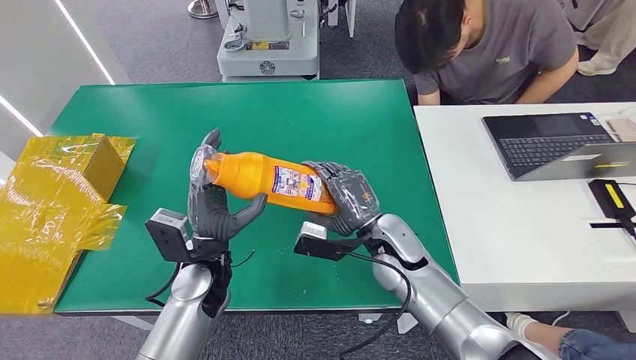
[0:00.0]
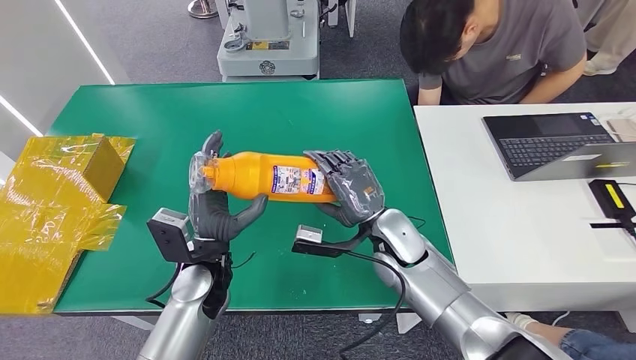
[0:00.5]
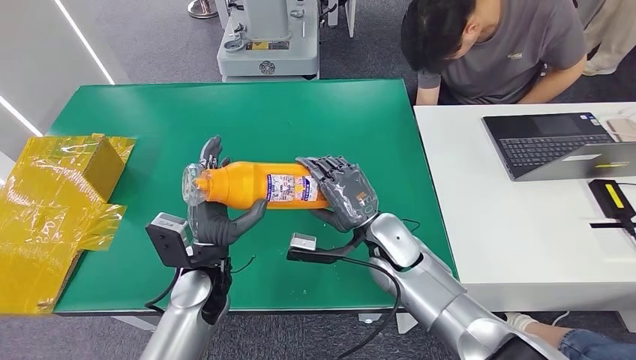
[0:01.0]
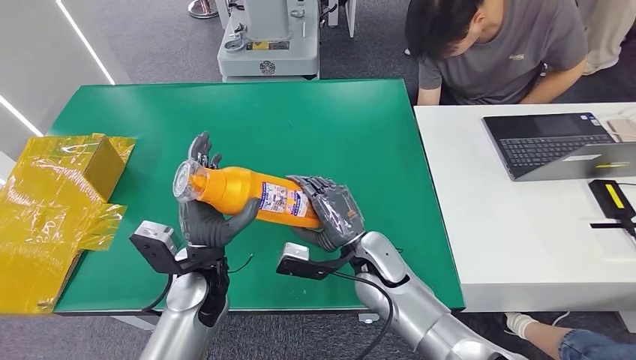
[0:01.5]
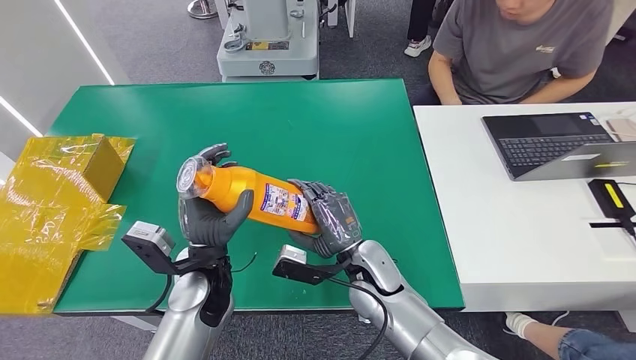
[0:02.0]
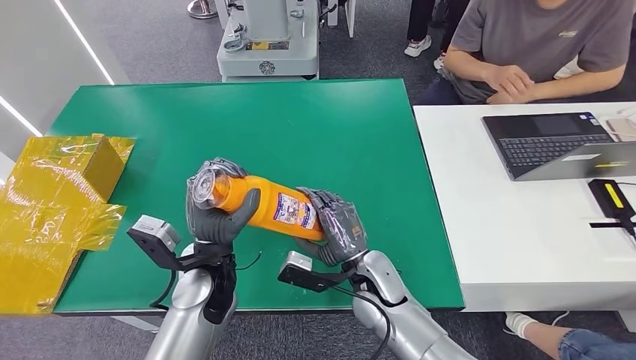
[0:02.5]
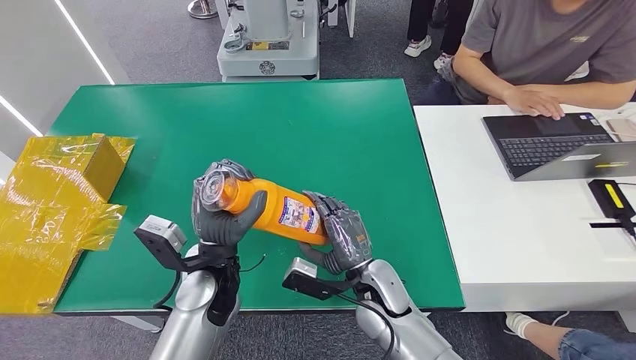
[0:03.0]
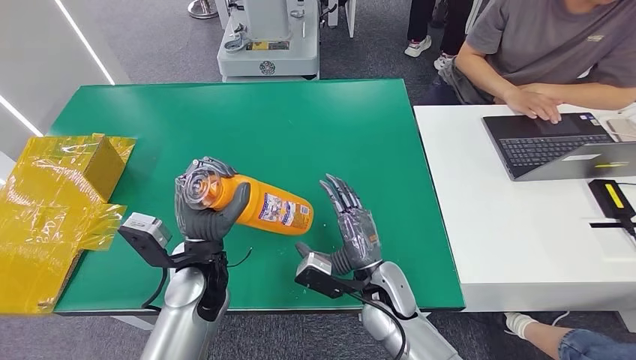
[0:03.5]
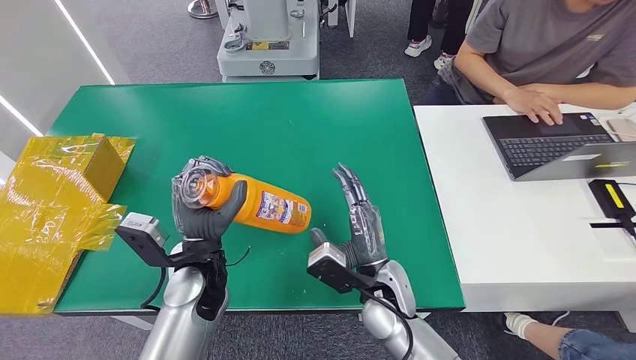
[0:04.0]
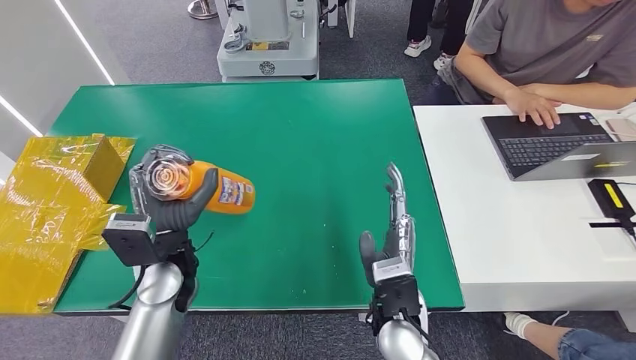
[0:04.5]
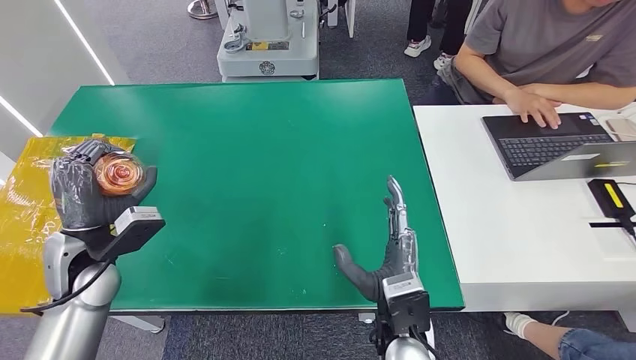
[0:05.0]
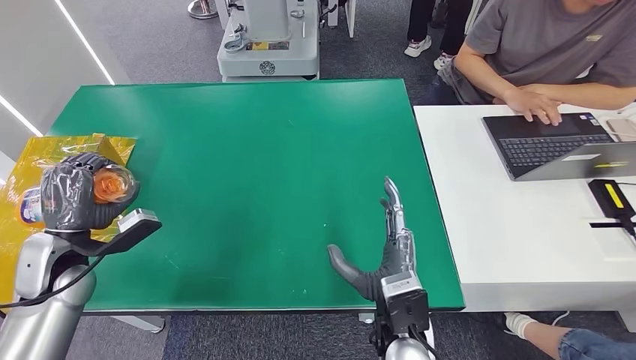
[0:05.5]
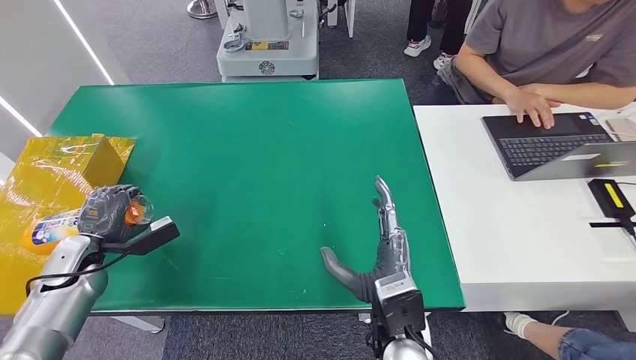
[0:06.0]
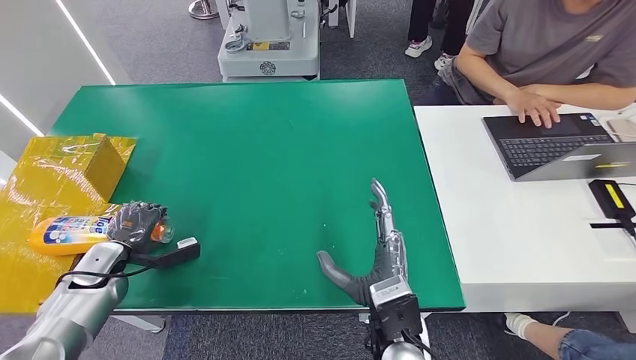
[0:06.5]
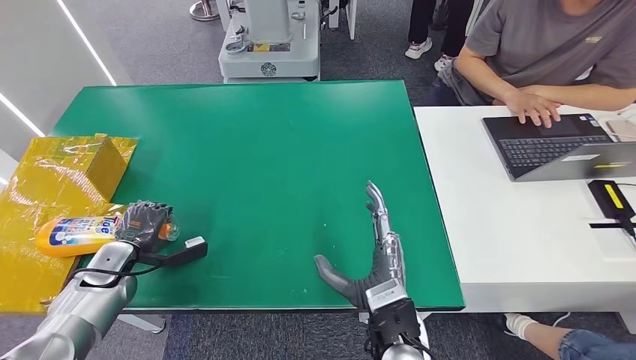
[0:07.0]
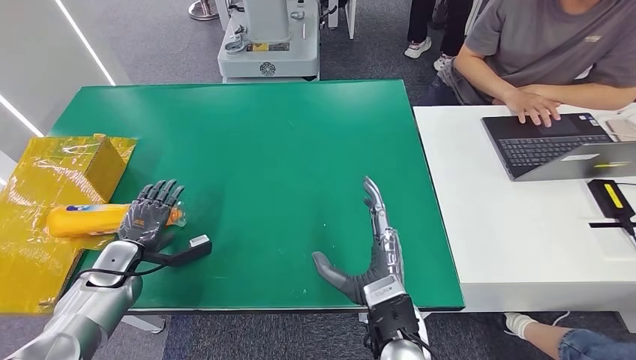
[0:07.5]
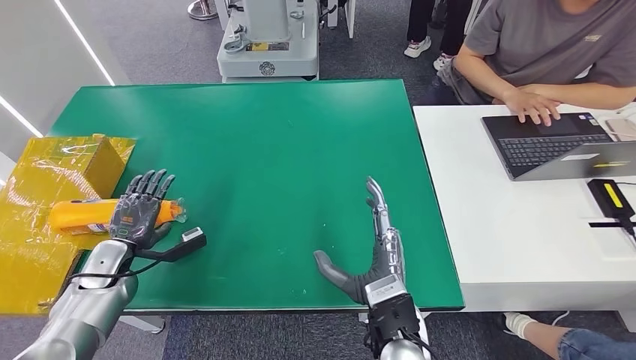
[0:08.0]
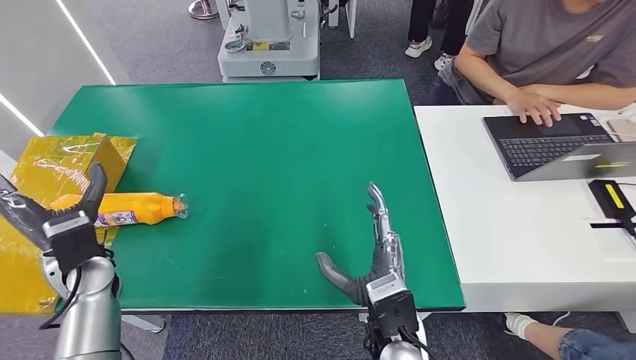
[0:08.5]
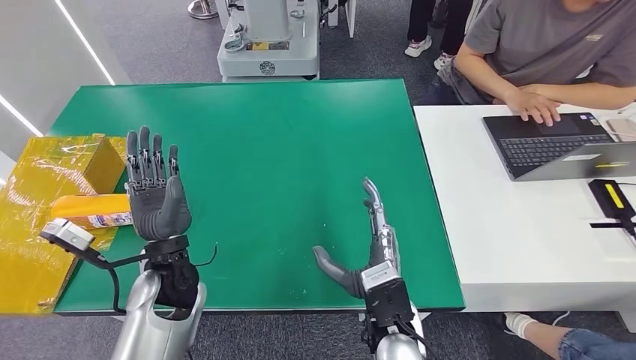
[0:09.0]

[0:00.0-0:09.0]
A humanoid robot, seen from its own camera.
Step, 0:00.0 to 0:09.0: Turn the bottle to the front side.
0:04.5 to 0:07.0: The left hand heads to the left and downward, covering approximately 25 cm.
0:07.0 to 0:09.0: The left hand goes approximately 25 cm to the right and upward.

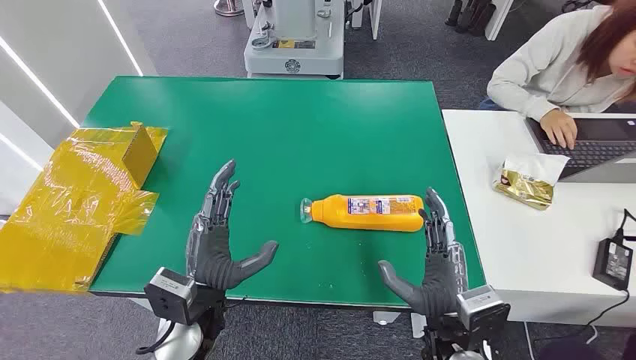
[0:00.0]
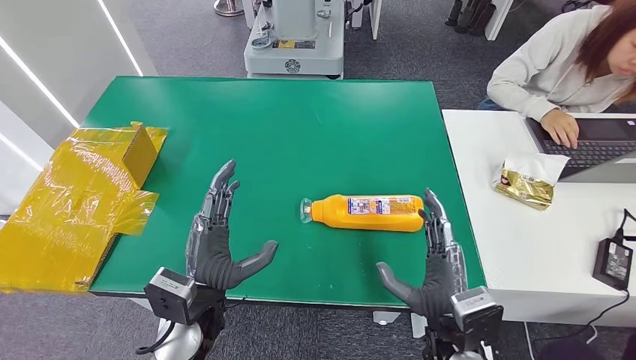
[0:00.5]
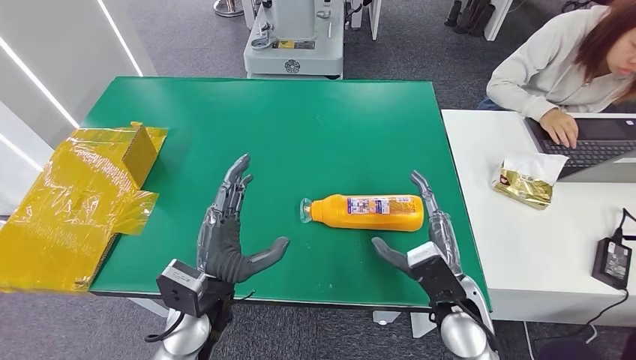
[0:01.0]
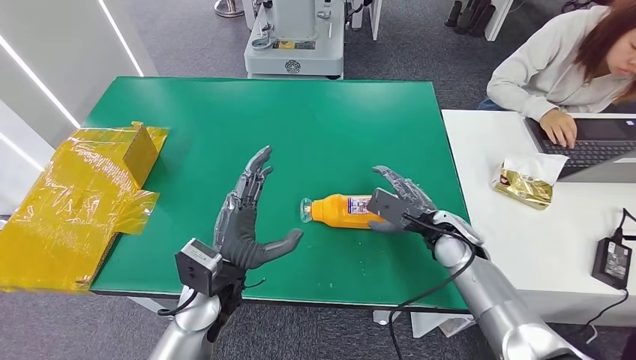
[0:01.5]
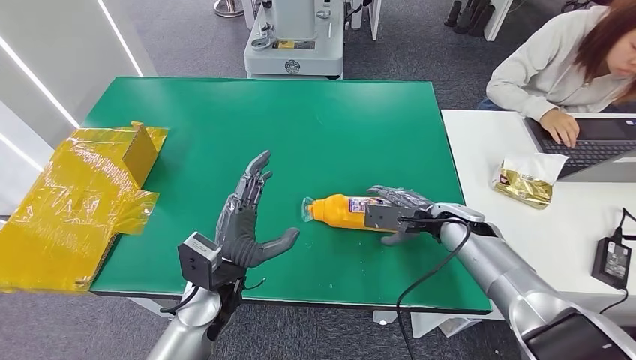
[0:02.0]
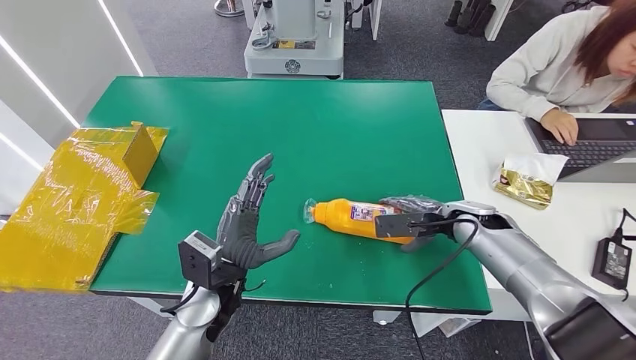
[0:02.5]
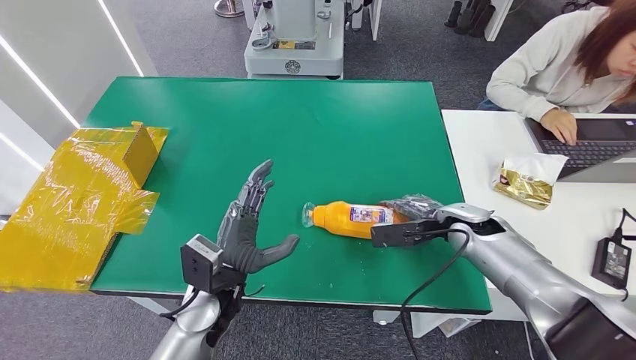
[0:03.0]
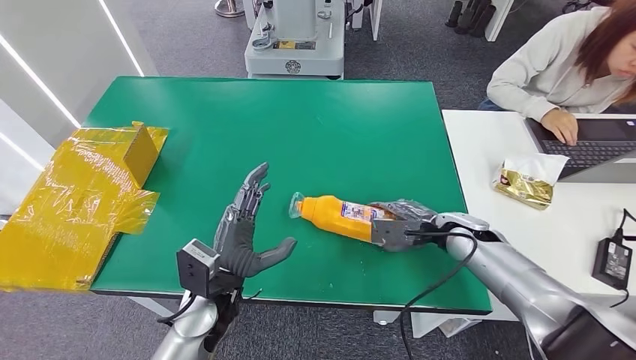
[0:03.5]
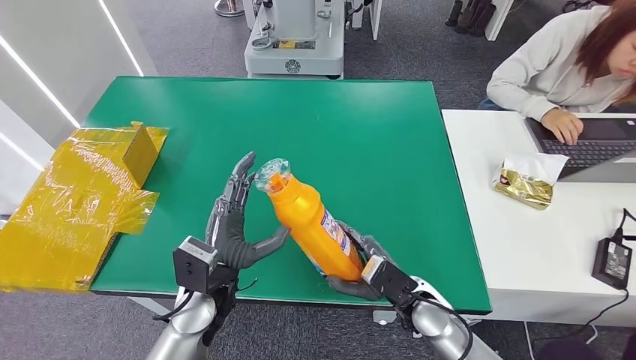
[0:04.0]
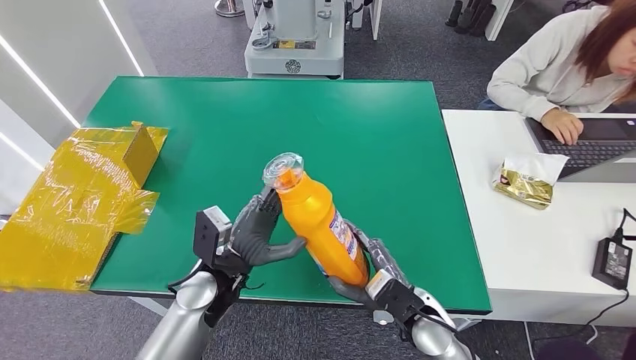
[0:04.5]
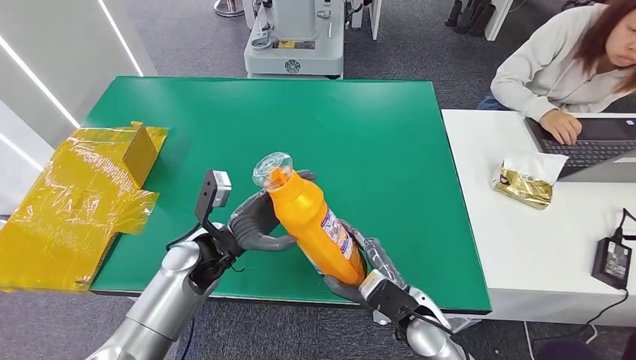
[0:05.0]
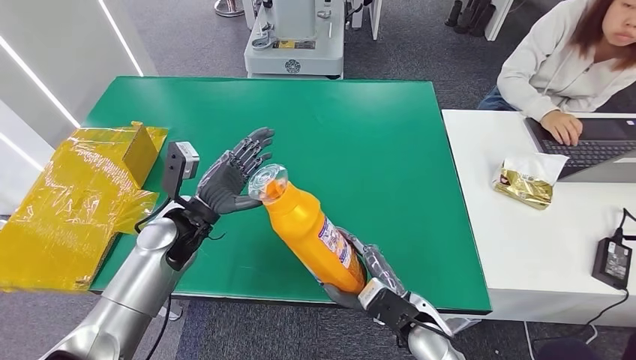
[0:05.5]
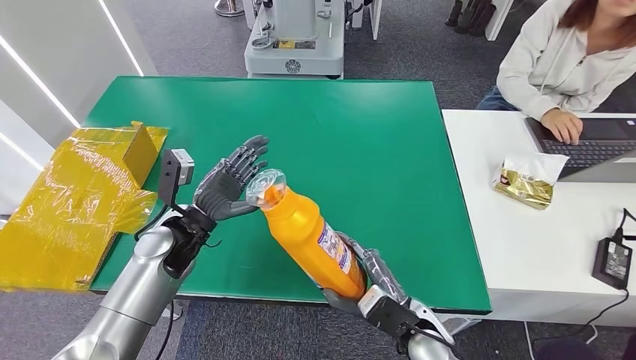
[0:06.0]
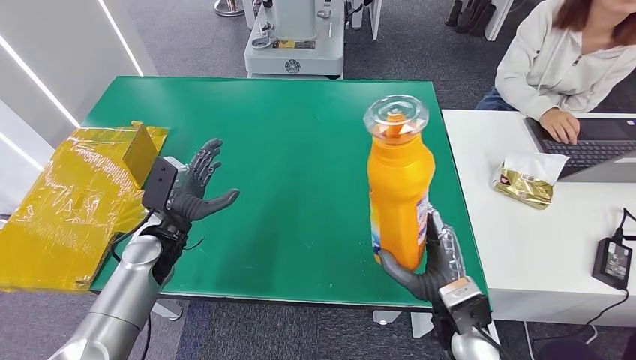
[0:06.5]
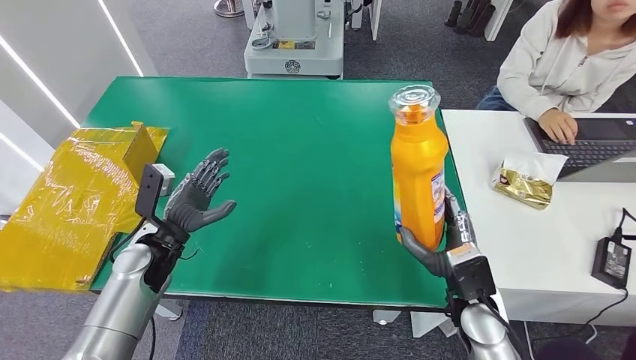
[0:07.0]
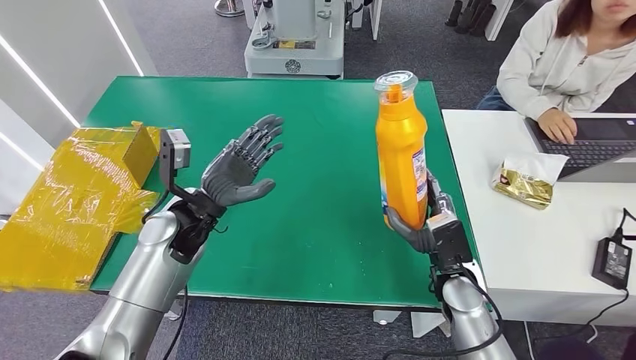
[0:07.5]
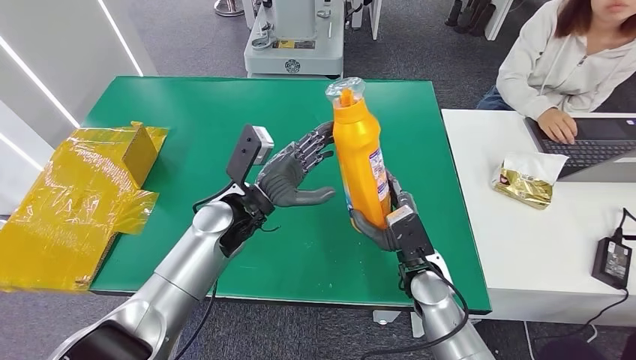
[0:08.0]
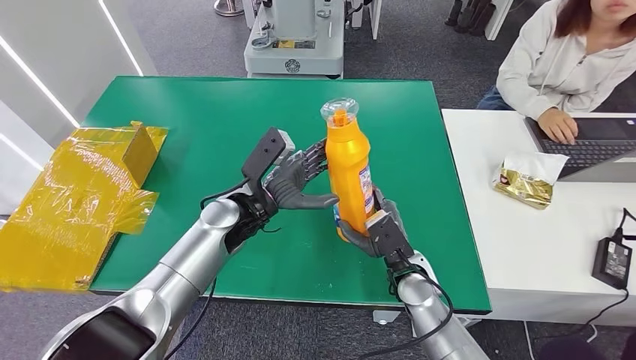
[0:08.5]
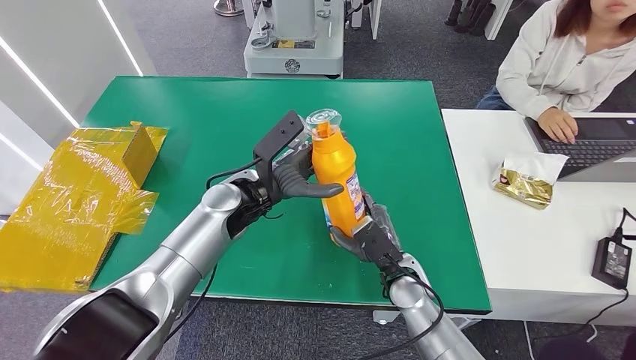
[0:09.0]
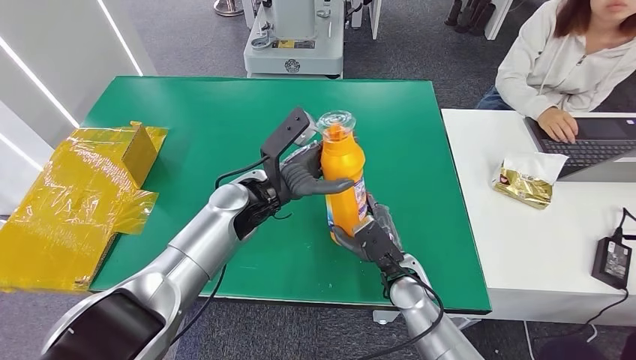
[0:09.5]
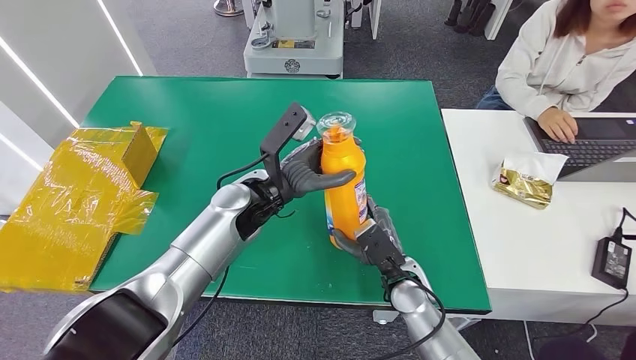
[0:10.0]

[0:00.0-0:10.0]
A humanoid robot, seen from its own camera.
Step, 0:00.0 to 0:04.0: Pick up the bottle from the table.
0:02.0 to 0:04.0: The right hand goes about 15 cm backward, to the left and downward.
0:04.0 to 0:06.0: The left hand is displaced forward and to the left by approximately 15 cm, while the right hand changes place by roughly 5 cm.
0:08.0 to 0:10.0: The hands move only a little.

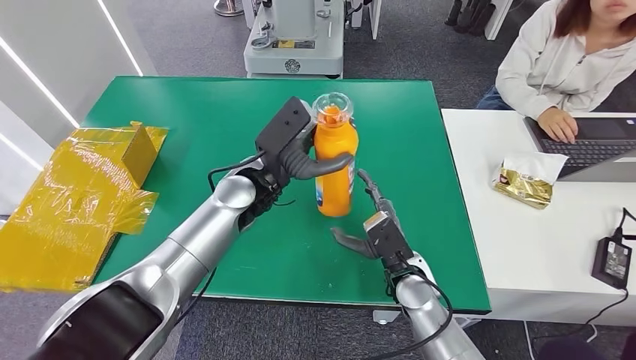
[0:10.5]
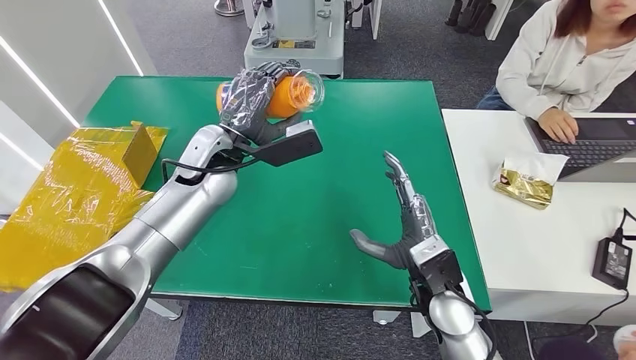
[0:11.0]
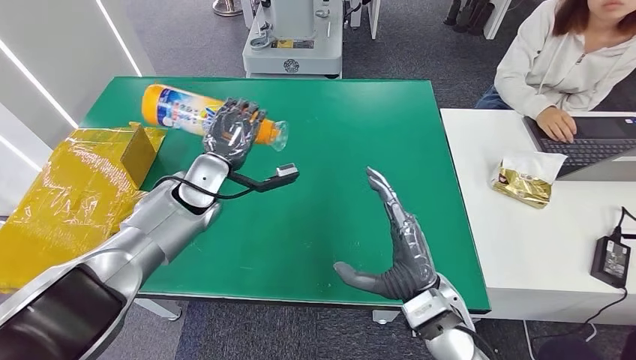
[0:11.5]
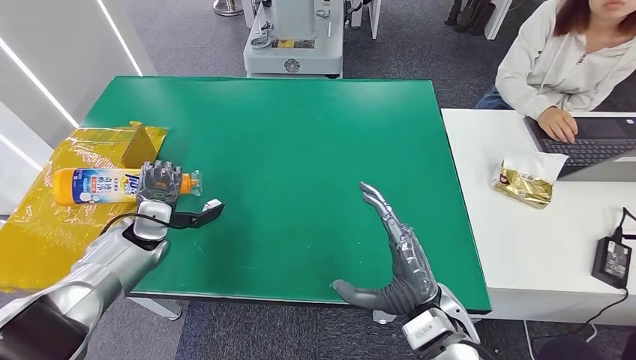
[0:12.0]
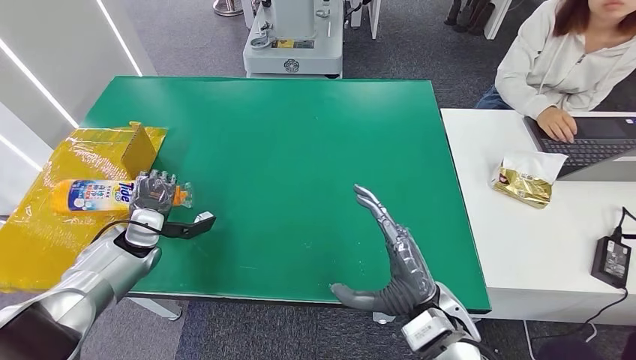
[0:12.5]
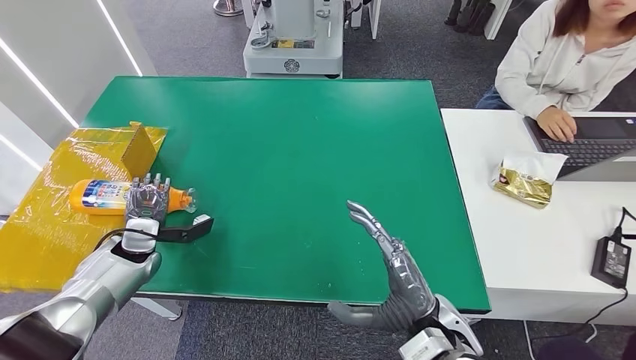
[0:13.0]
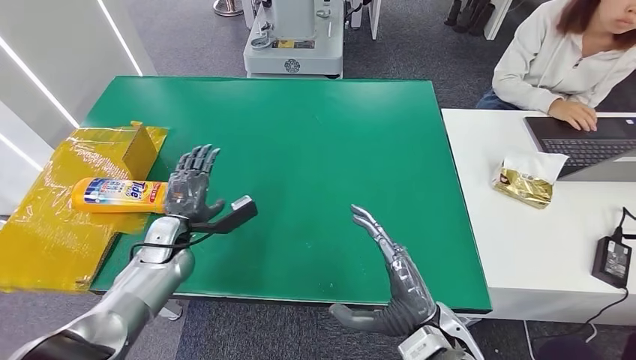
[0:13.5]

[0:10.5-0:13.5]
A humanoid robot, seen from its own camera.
Step, 0:10.5 to 0:13.5: Turn the bottle to the front side.
0:10.5 to 0:12.0: The left hand moves to the left and downward, about 25 cm. The right hand travels backward and upward by about 10 cm.
0:12.0 to 0:13.5: The left hand shifts approximately 5 cm to the right.
